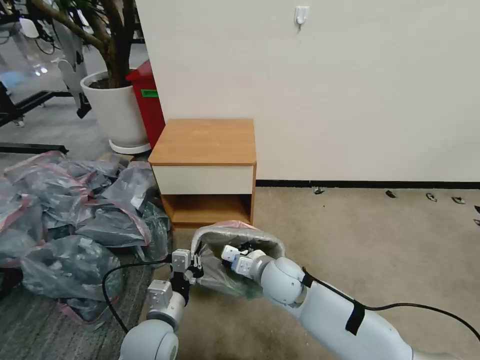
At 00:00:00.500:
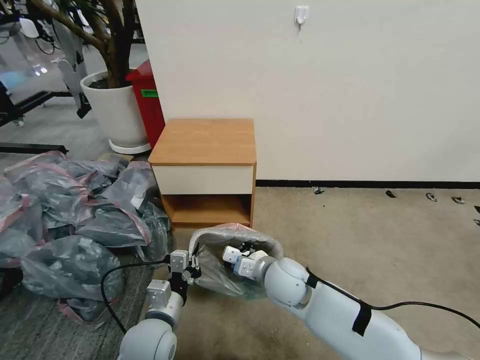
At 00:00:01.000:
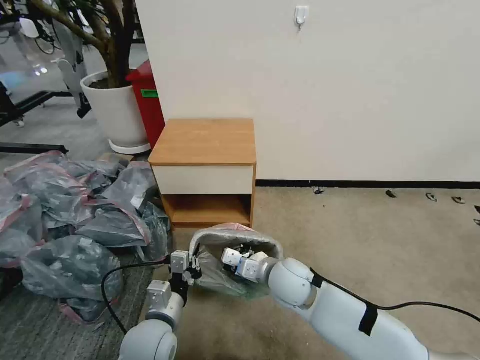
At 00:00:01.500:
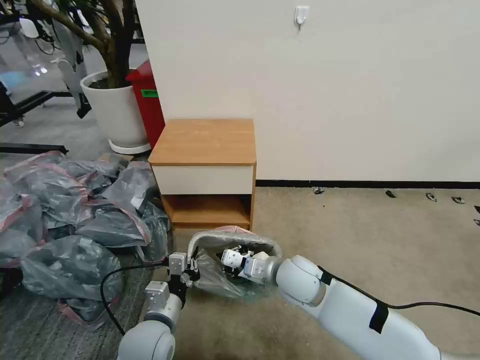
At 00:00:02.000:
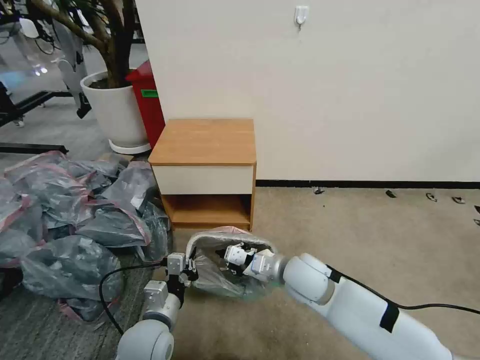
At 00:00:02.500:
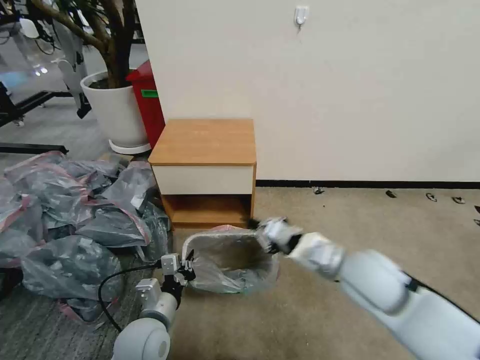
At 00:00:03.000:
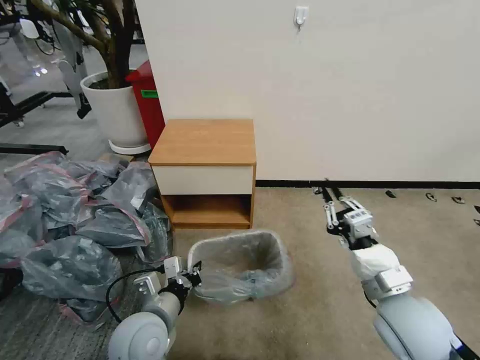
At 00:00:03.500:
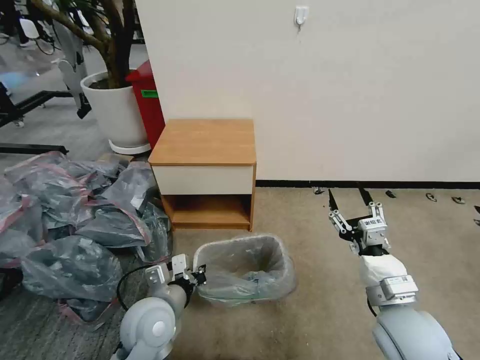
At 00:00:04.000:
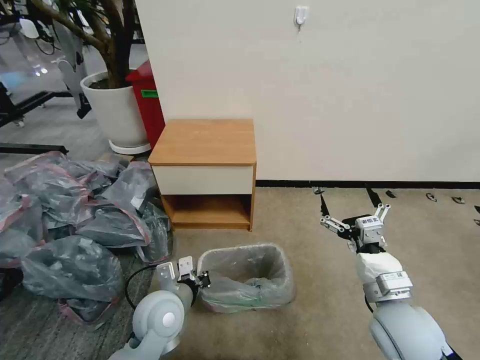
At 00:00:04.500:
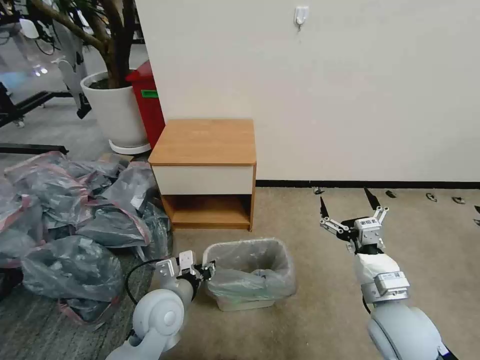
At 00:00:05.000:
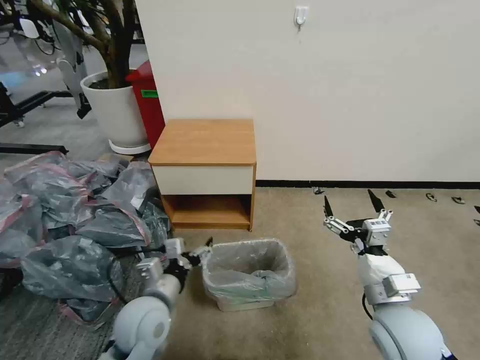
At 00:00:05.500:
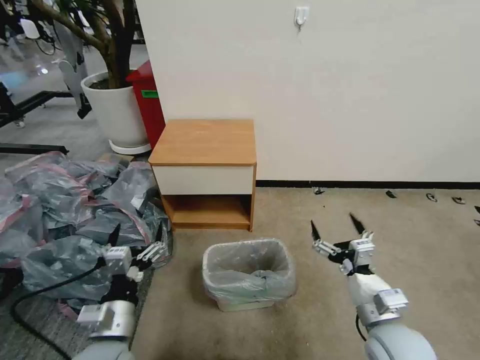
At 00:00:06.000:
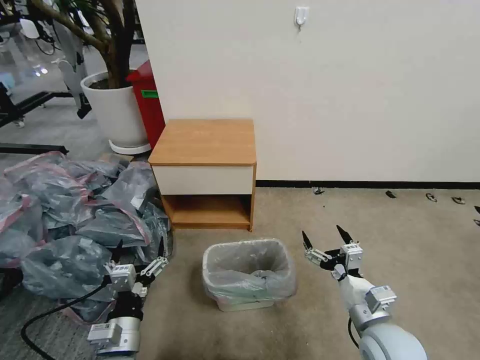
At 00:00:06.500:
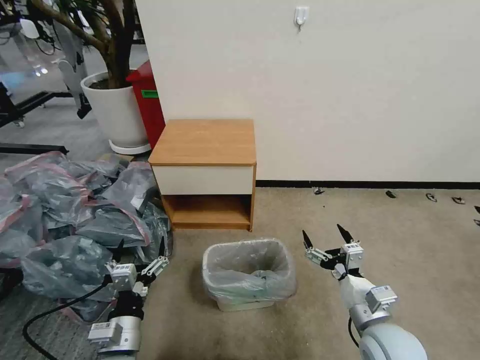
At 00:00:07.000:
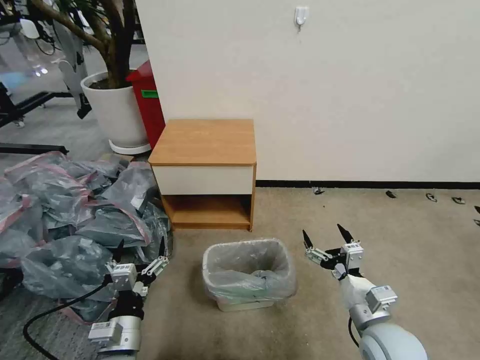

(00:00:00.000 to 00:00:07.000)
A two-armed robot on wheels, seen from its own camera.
Task of the whole recording: Pick up the garbage bag from the table and place it over the trash can.
00:00:00.000 - 00:00:02.000: The right gripper changes place by about 5 cm.
00:00:02.000 - 00:00:03.500: The left gripper shifts approximately 5 cm upward. The right gripper moves to the right and backward, roughly 20 cm, and opens.
00:00:03.500 - 00:00:05.000: The right gripper opens its fingers. Meanwhile the left gripper opens.
00:00:05.000 - 00:00:07.000: The left gripper heads backward, covering roughly 10 cm, while the right gripper goes approximately 5 cm downward.
